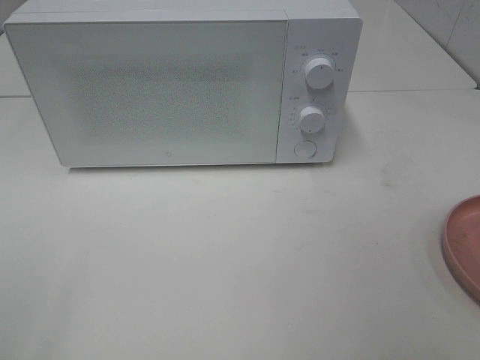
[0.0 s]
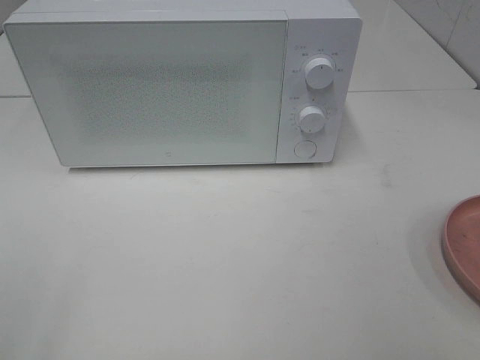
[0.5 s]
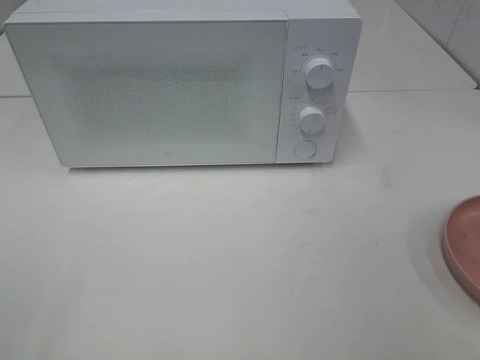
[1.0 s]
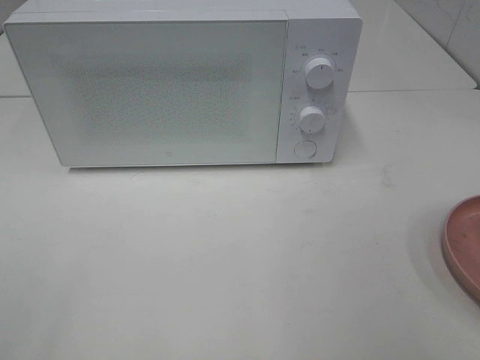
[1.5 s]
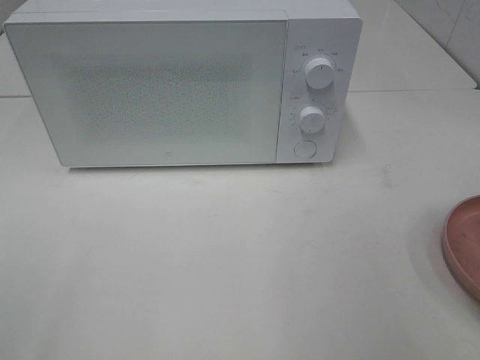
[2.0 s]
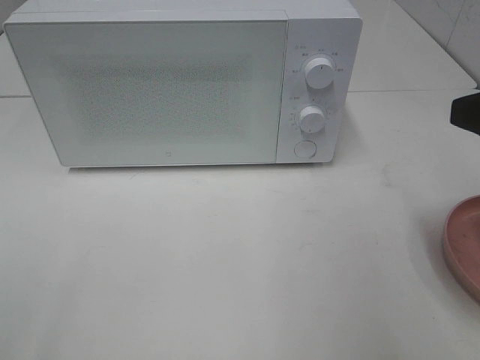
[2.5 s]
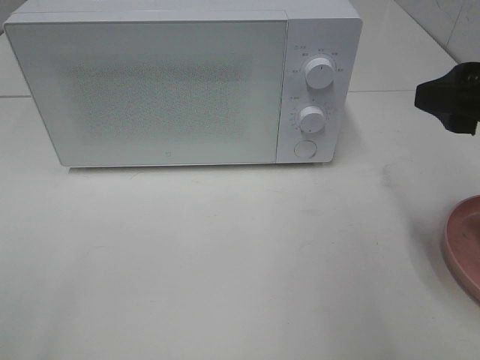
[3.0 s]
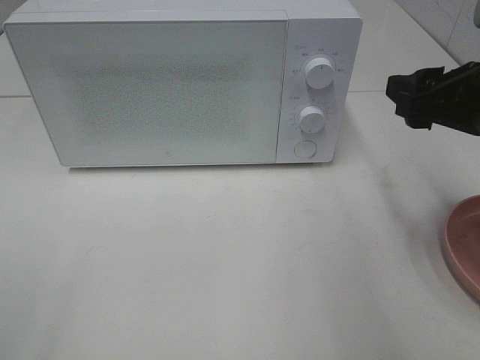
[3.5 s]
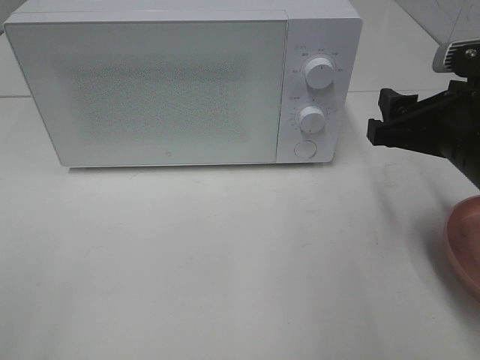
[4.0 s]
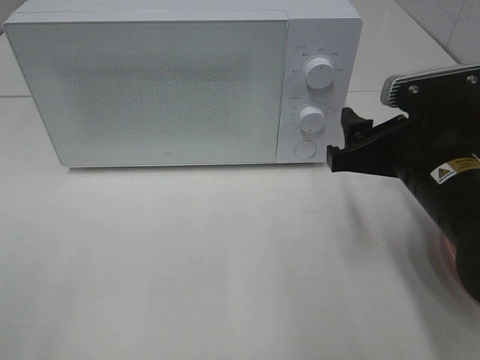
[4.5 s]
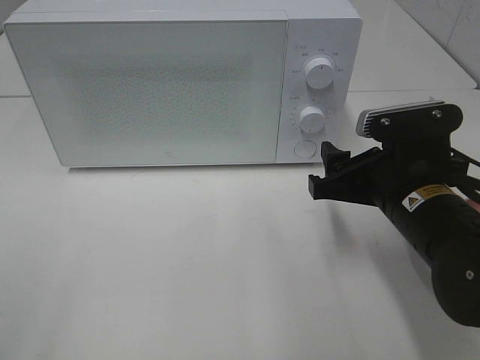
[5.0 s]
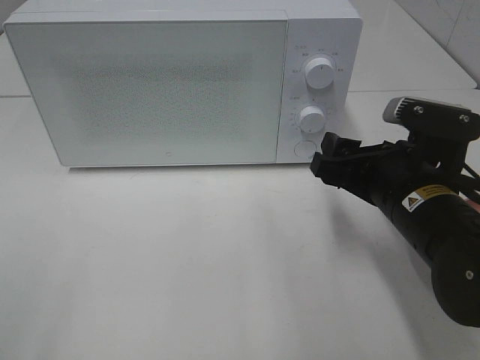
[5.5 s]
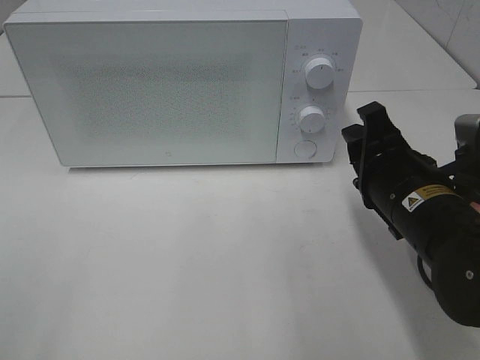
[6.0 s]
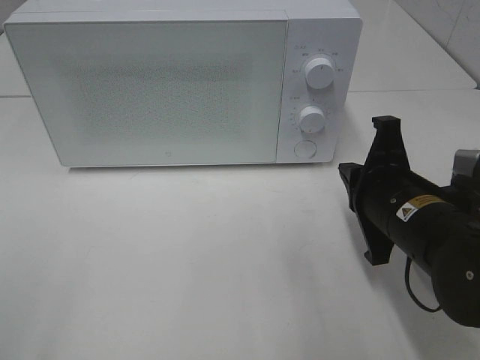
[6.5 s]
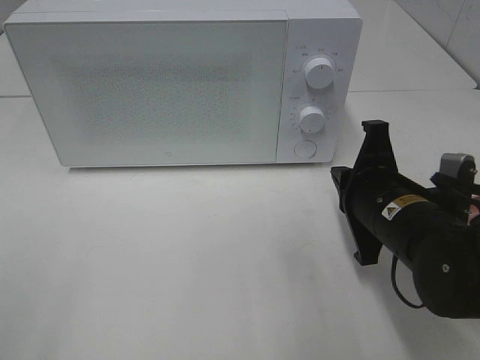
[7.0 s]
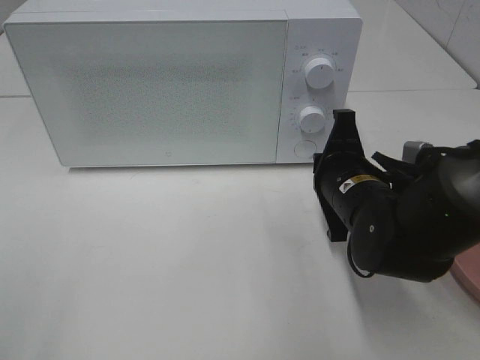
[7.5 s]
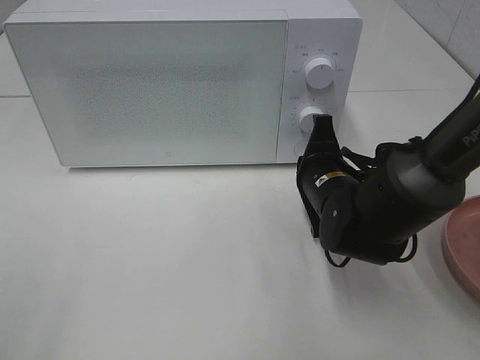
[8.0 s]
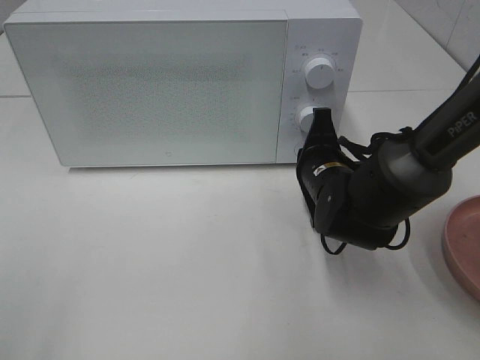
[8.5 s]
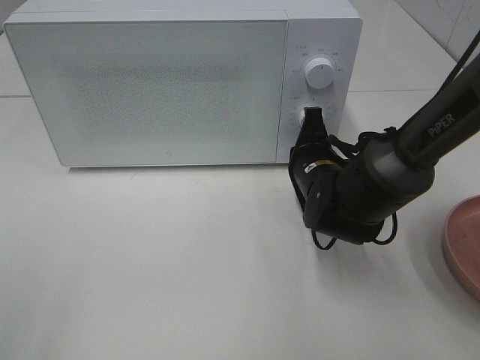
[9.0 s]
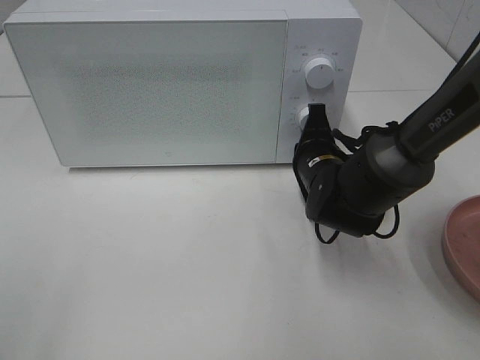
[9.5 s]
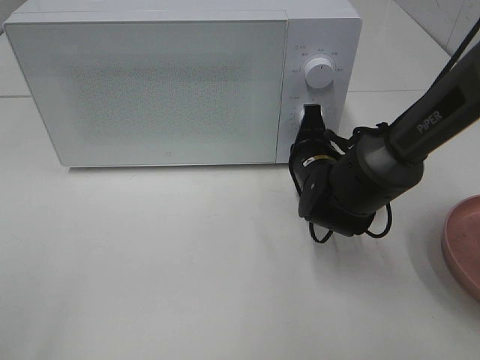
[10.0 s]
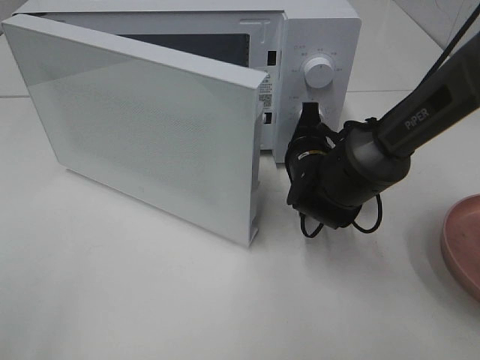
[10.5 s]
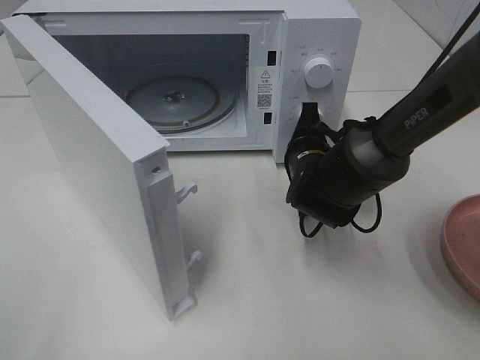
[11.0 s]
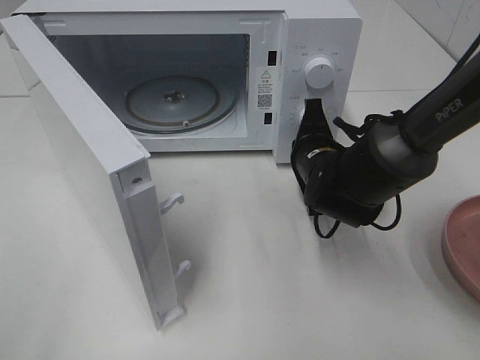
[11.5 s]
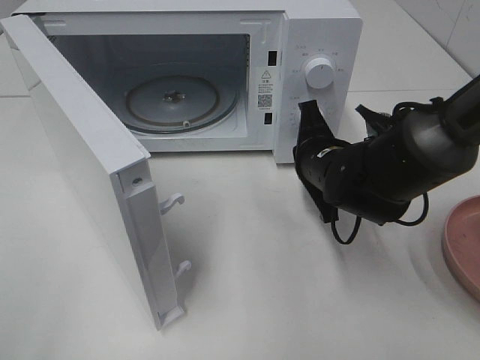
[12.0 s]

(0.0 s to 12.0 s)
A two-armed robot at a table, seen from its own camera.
Task of the whole recording: Heat the burger.
2.0 s - 4.0 s: The right gripper goes some 15 cm forward and downward.
4.0 s - 6.0 s: The right gripper heads downward, covering roughly 5 cm.
6.0 s - 8.0 s: The right gripper travels forward and downward by some 10 cm, and closes its fingers.
8.0 s - 10.0 s: There are only small adjustments of the grippers.

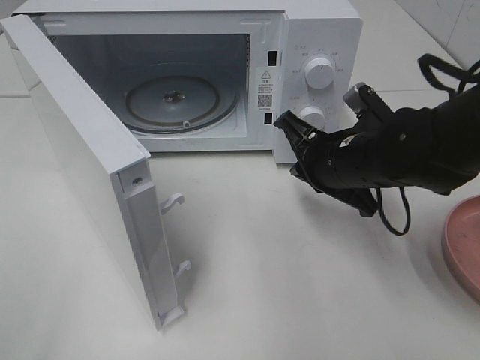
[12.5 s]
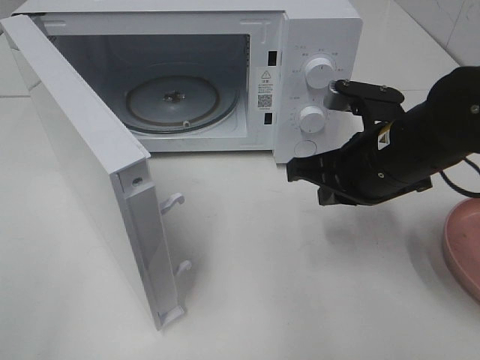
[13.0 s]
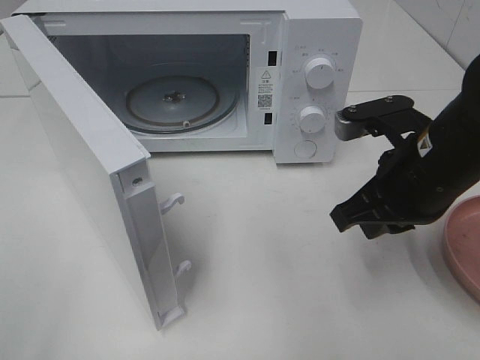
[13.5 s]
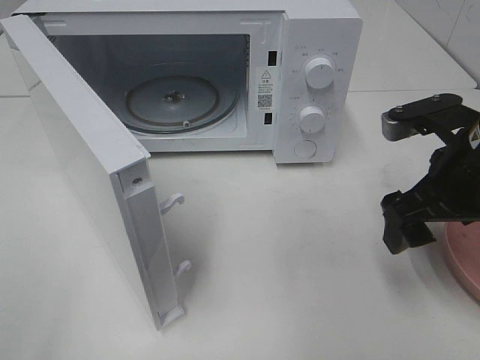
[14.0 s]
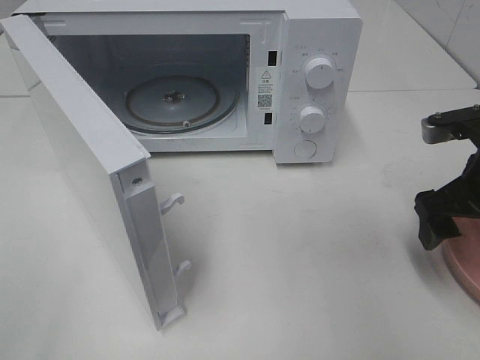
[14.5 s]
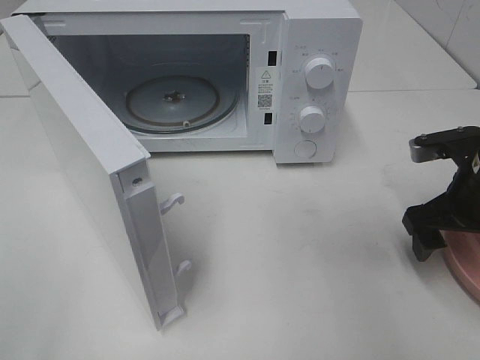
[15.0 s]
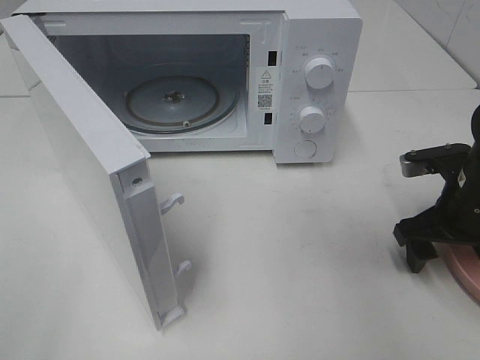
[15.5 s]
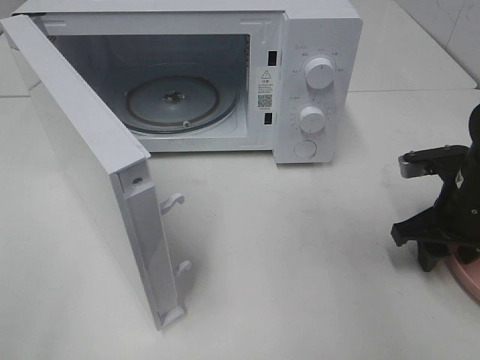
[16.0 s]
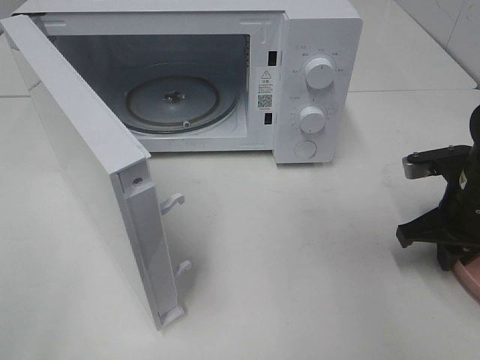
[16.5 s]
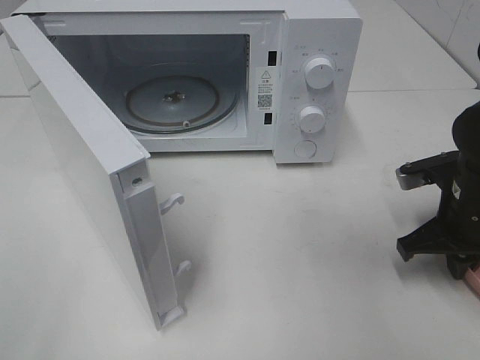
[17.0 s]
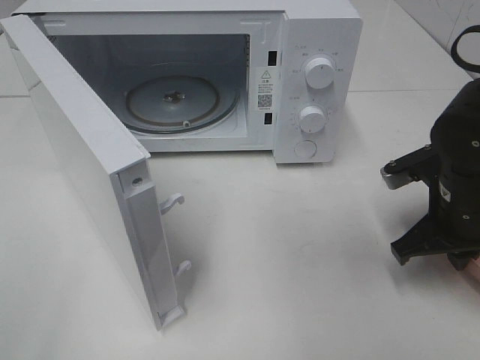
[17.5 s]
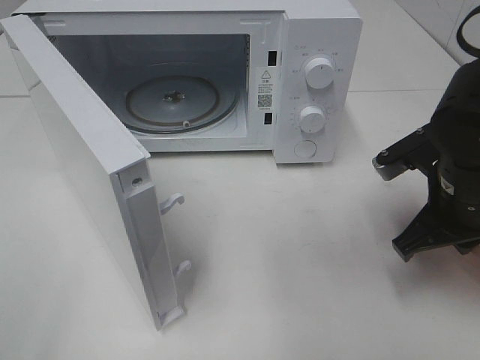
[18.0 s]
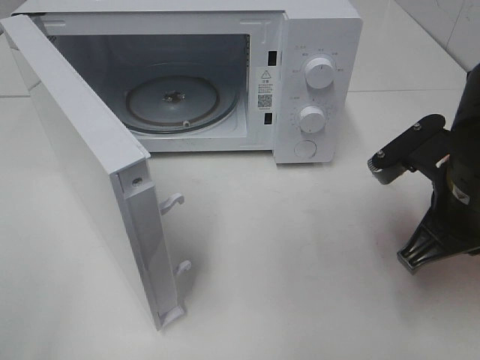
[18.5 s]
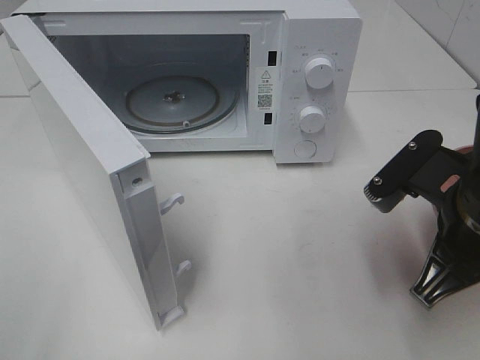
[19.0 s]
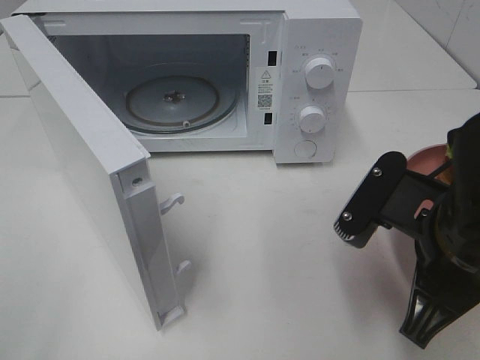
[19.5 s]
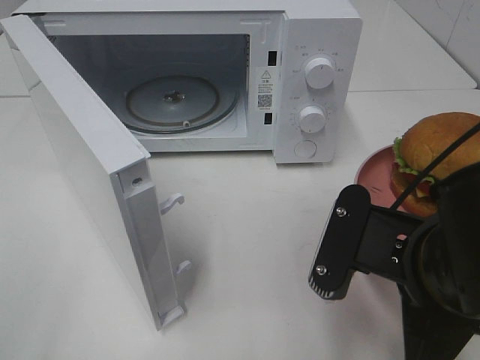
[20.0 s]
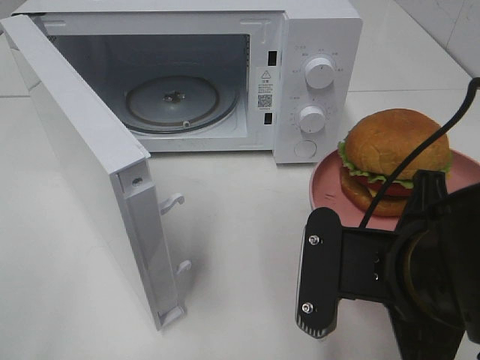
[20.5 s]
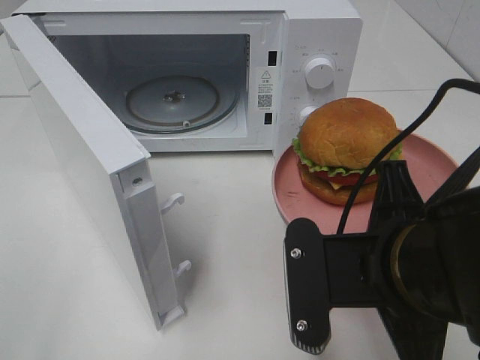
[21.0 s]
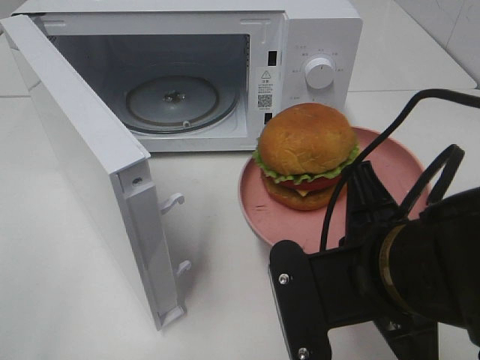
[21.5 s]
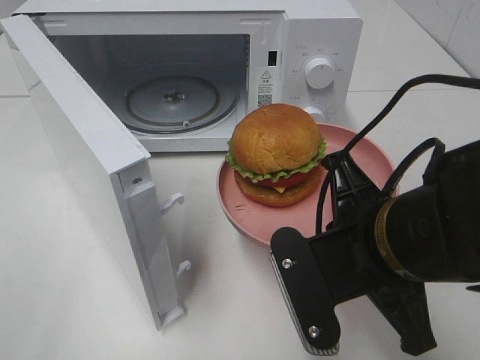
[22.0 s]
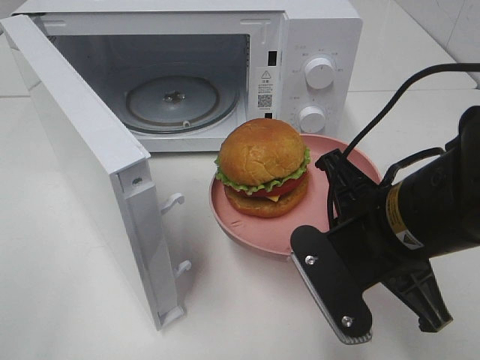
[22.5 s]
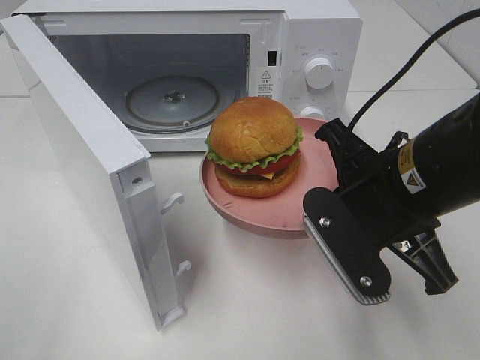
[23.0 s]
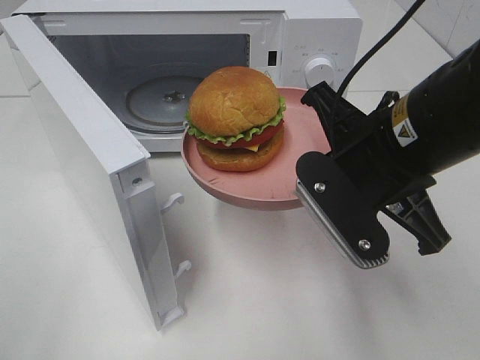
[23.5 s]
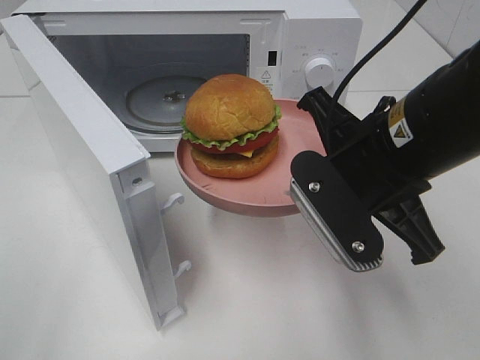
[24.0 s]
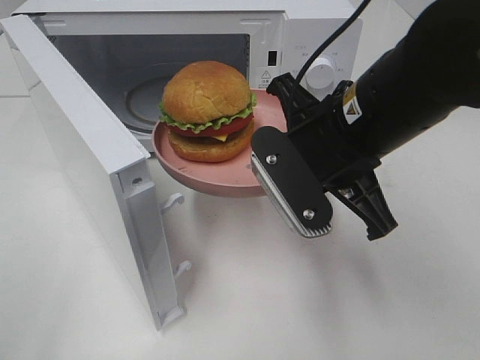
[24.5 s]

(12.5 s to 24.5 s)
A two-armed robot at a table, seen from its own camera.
Task of the whole recording: Heat the burger.
Step, 12.5 s - 17.0 s: Right hand: grab the plate with the hamburger.
12.5 s - 14.5 s: The right gripper heads to the right, covering roughly 15 cm, and opens its fingers.
14.5 s - 16.5 s: The right gripper travels downward by approximately 5 cm, and closes.
16.5 s - 18.5 s: The right gripper shifts approximately 10 cm to the left, upward and backward.
18.5 s - 20.5 s: The right gripper moves backward and to the left, some 10 cm.
20.5 s - 22.5 s: The right gripper heads forward, covering about 5 cm.
22.5 s - 24.5 s: The right gripper goes roughly 5 cm forward.

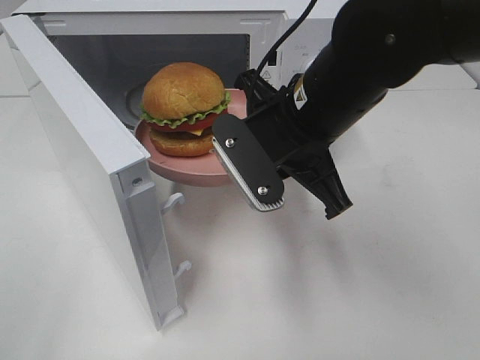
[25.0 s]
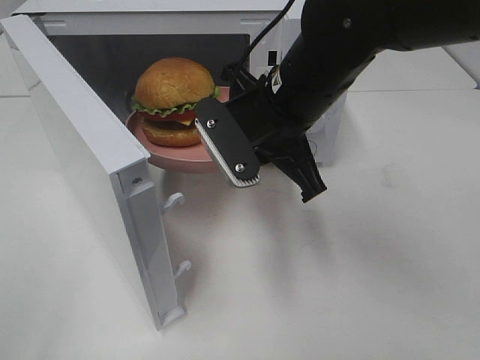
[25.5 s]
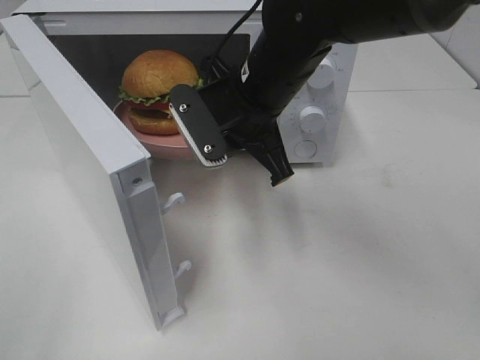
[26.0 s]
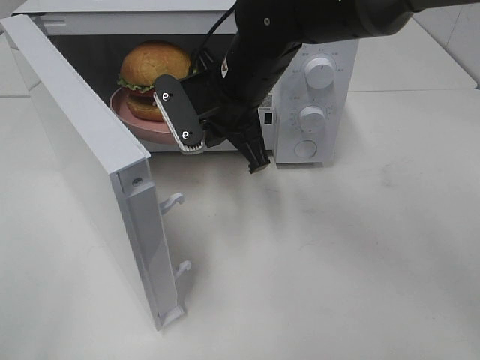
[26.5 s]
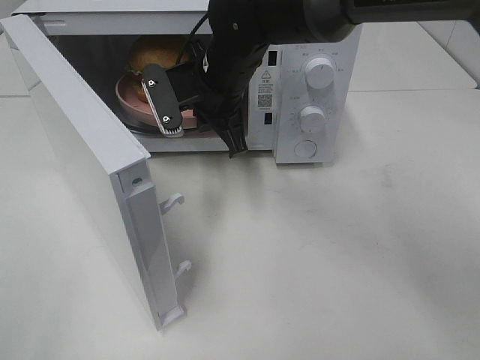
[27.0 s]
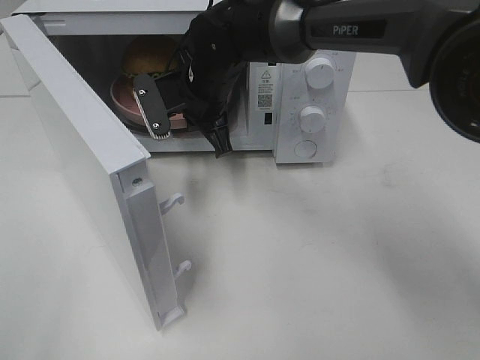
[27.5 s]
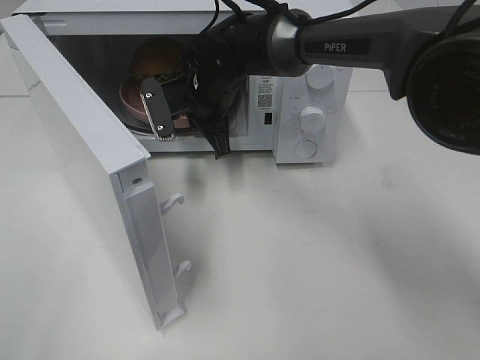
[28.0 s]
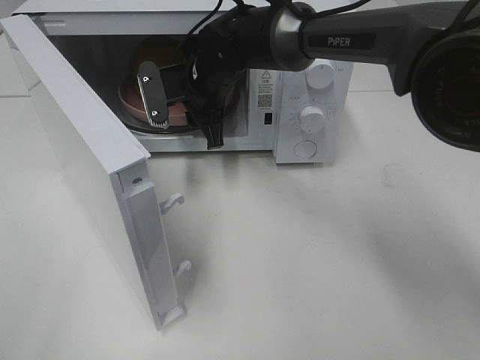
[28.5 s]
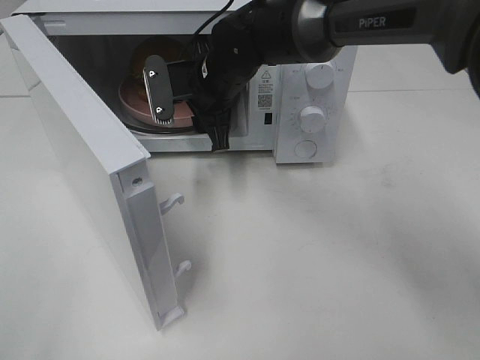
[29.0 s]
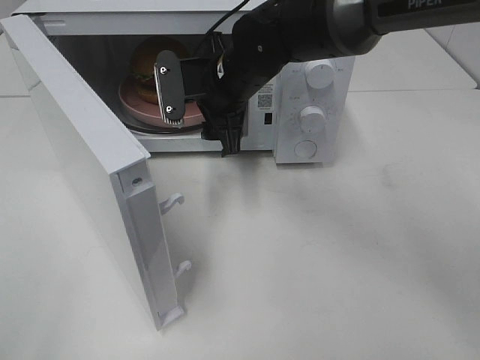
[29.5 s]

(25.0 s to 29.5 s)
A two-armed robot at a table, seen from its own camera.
Task of the whole recording: Heat the burger.
Step, 25.0 s - 28.5 s: Right hand: place the plate in the microwave.
25.0 s - 27.0 s: The right gripper goes roughly 15 cm forward and to the left.
27.0 s - 29.5 s: The right gripper opens up.
